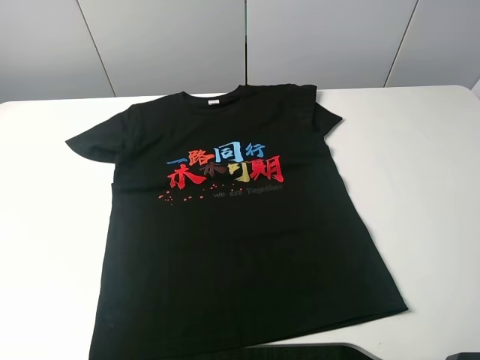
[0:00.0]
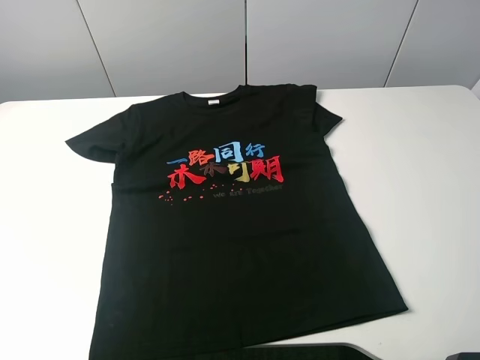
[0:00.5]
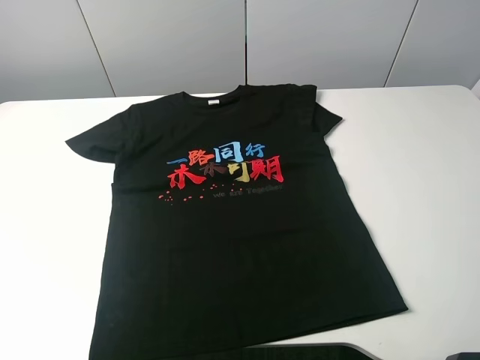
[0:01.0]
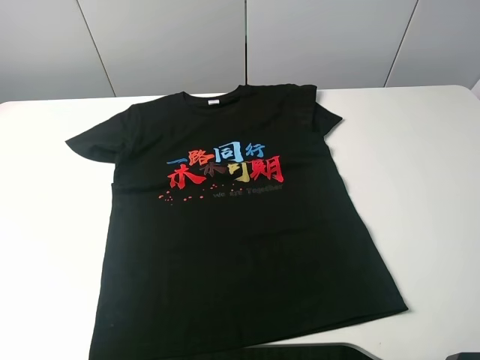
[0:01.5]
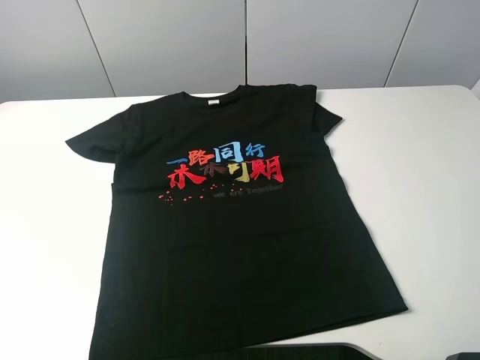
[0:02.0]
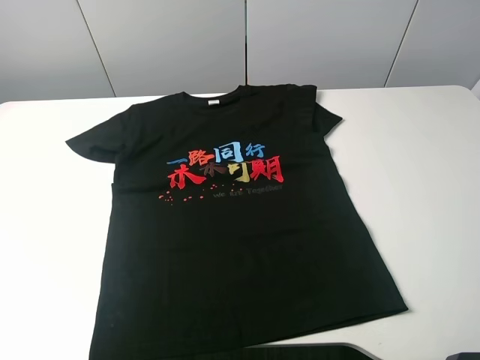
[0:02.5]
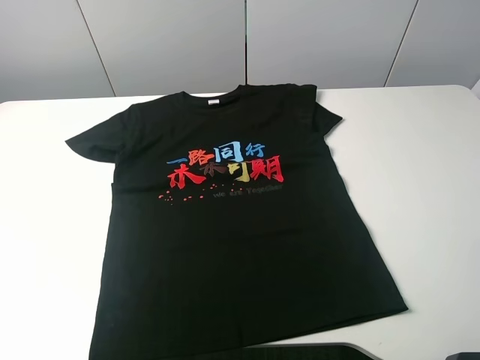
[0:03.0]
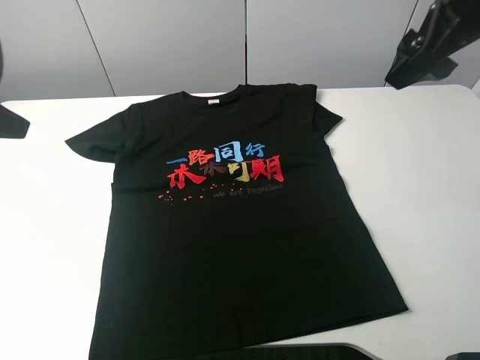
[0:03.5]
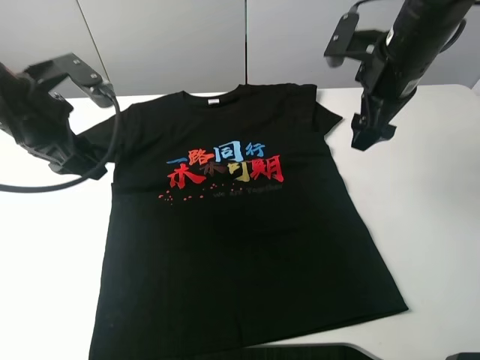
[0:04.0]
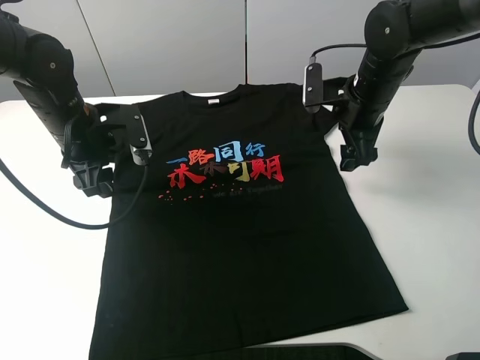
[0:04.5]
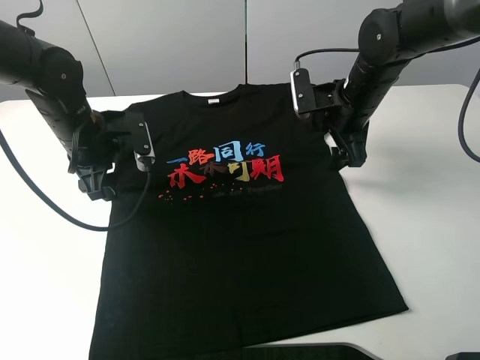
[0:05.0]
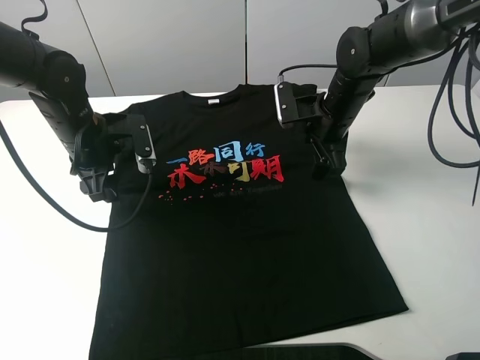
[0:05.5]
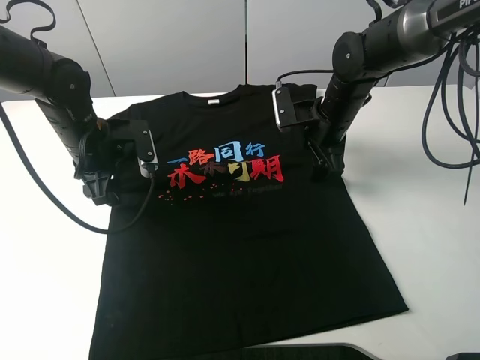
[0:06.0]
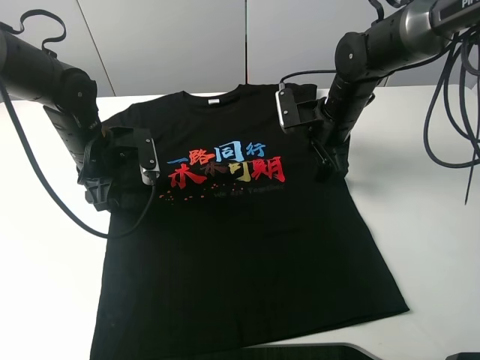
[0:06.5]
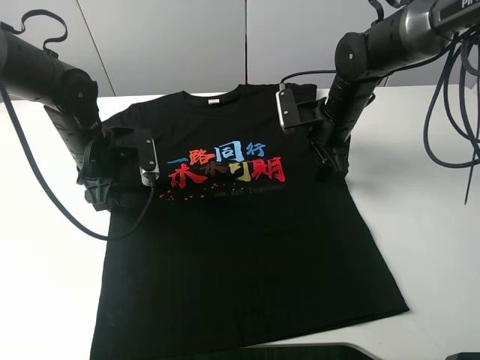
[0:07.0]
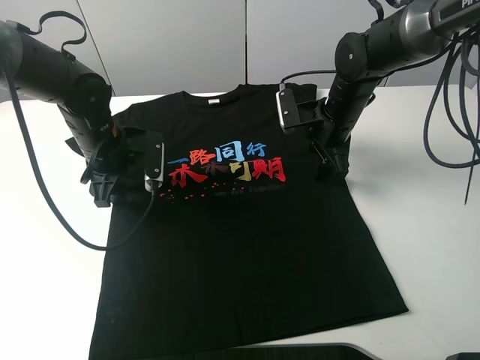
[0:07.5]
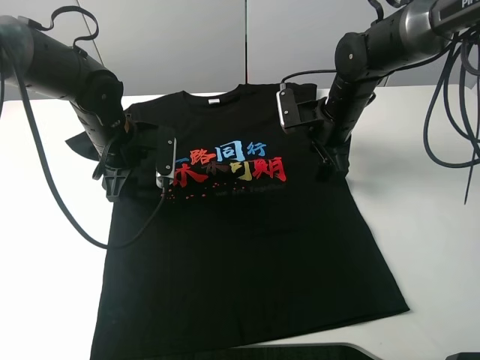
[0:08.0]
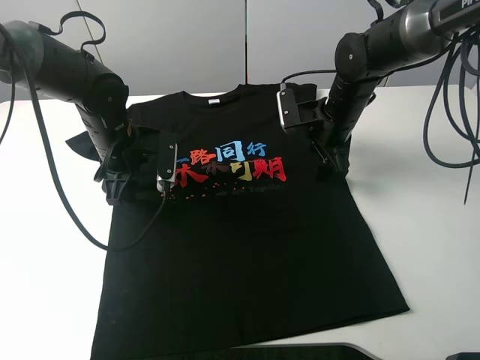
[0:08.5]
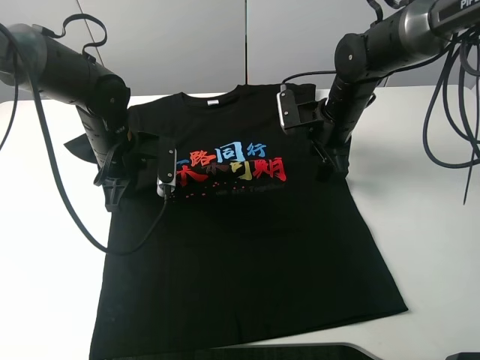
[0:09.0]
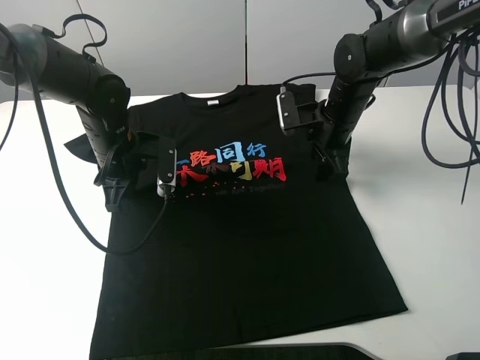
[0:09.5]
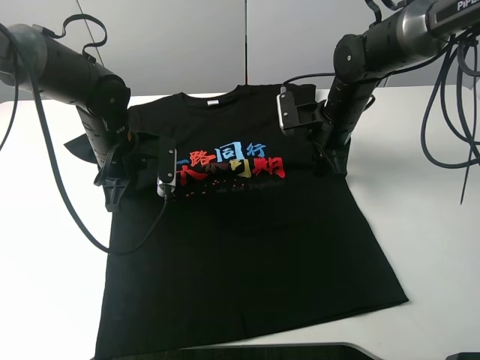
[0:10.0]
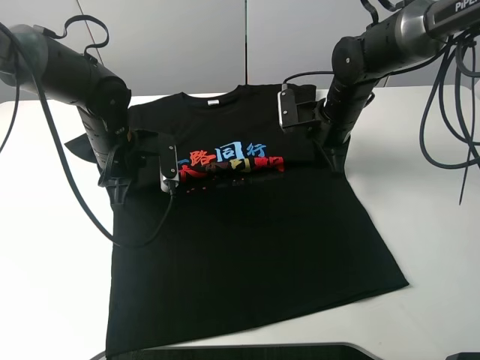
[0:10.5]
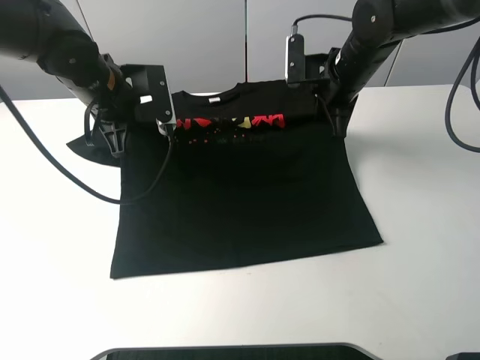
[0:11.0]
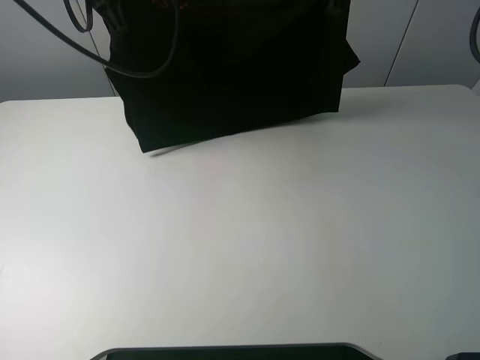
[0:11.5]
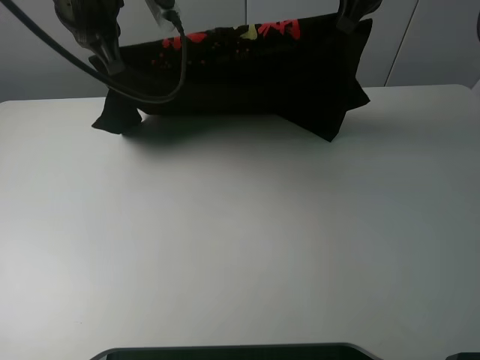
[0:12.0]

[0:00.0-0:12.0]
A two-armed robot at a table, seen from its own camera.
Task of the whole recording: fold the clothes on the table.
Step, 0:00.0 to 0:10.0: Lift the black T-shirt with the left gripper.
0:00.0 to 0:02.0: Both grippers stay about where they are.
0:02.0 to 0:04.0: Both grippers move forward, about 30 cm.
0:04.0 to 0:06.0: Both grippers move downward, some 10 cm.
0:06.0 to 0:08.0: The grippers move only a little.
0:08.0 to 0:10.0: The left gripper closes up. Meanwhile the right gripper closes its fingers.
0:10.0 to 0:12.0: Both grippers travel together upward, some 20 cm.

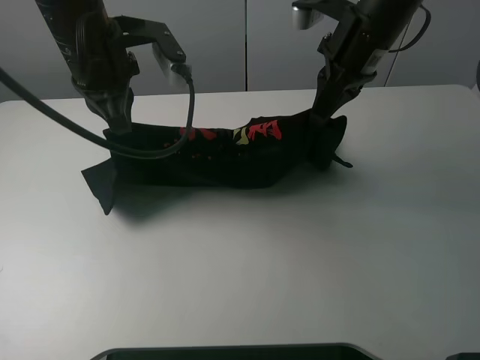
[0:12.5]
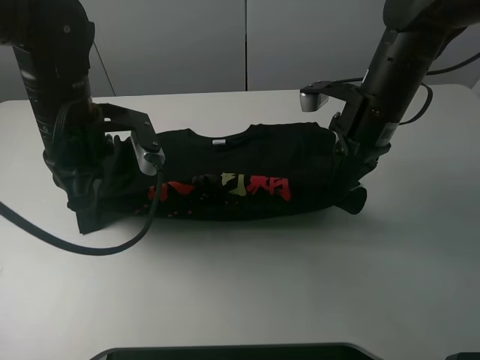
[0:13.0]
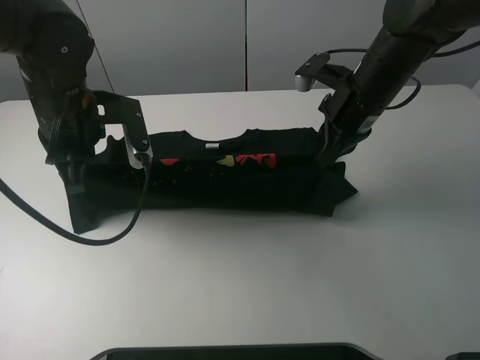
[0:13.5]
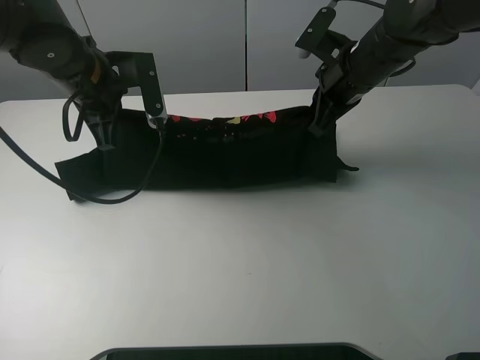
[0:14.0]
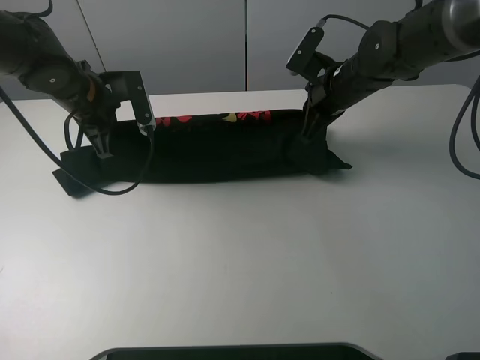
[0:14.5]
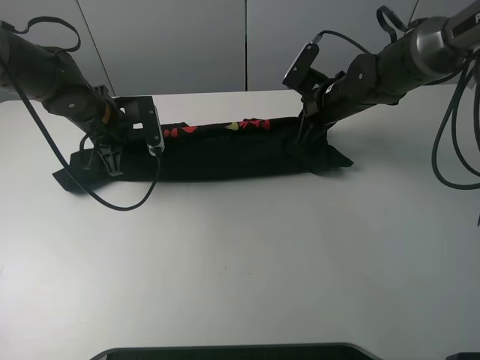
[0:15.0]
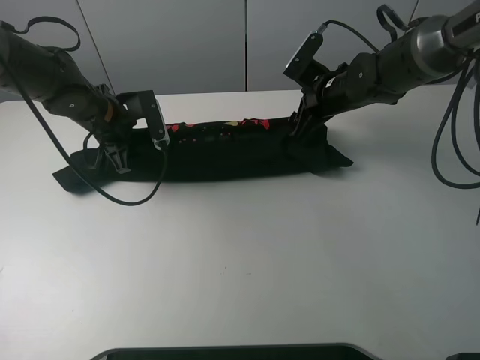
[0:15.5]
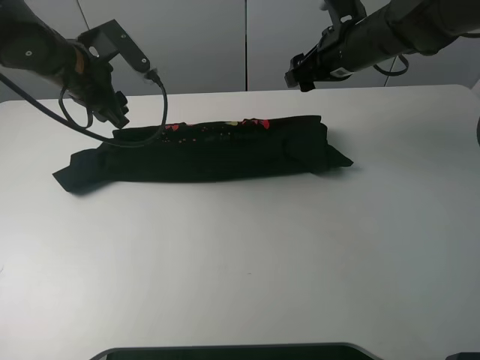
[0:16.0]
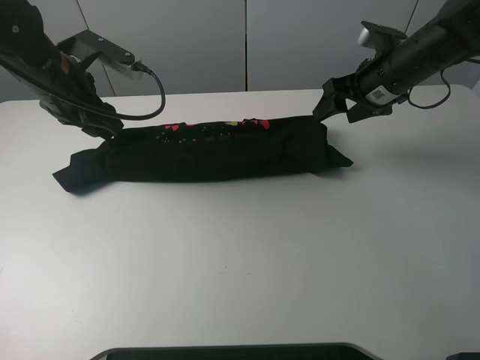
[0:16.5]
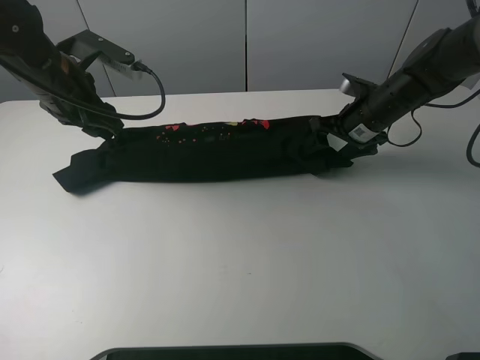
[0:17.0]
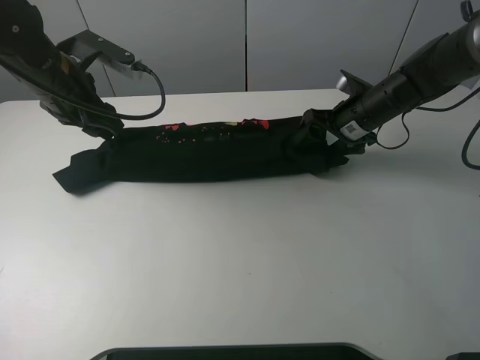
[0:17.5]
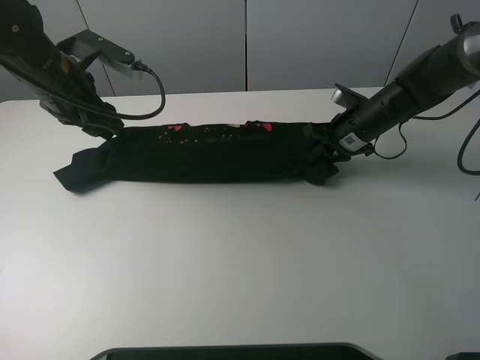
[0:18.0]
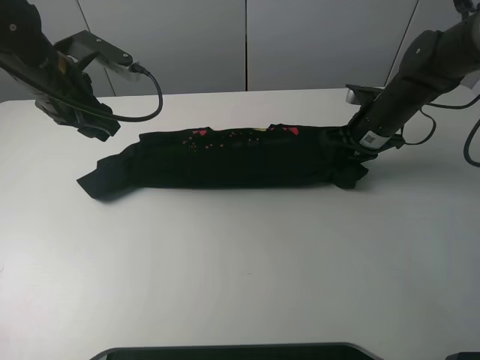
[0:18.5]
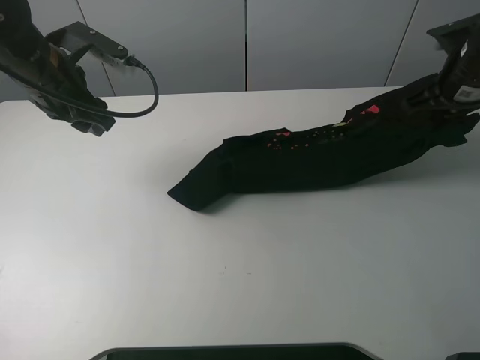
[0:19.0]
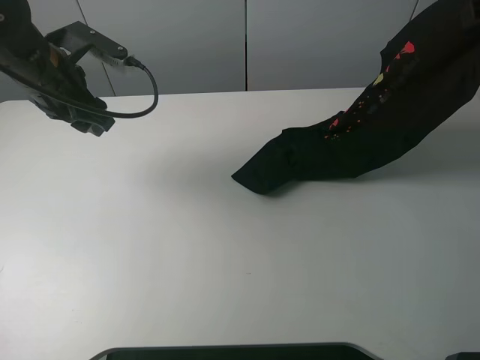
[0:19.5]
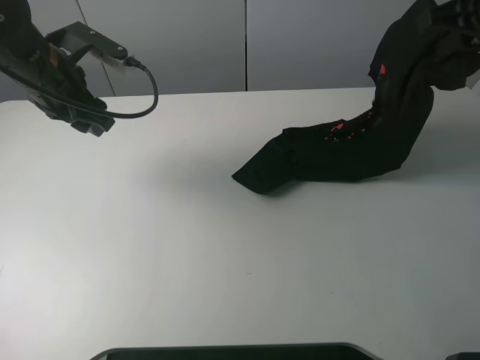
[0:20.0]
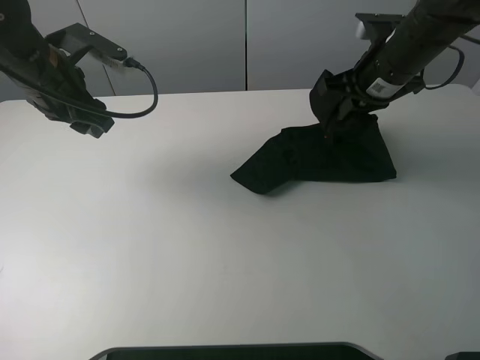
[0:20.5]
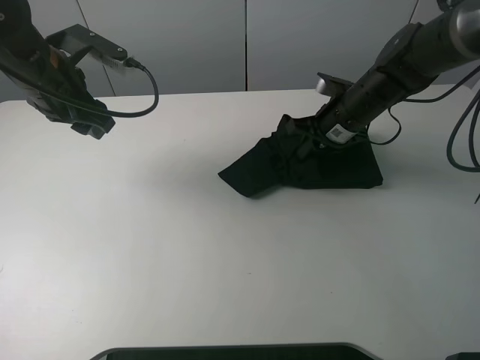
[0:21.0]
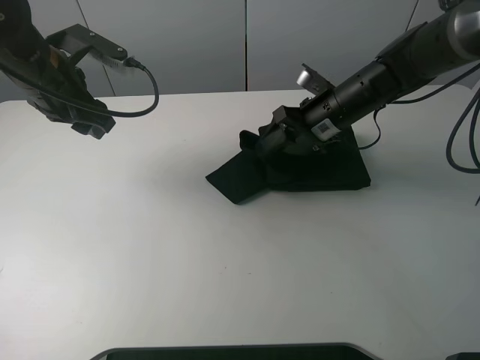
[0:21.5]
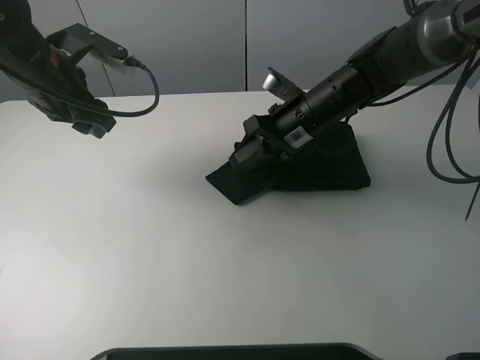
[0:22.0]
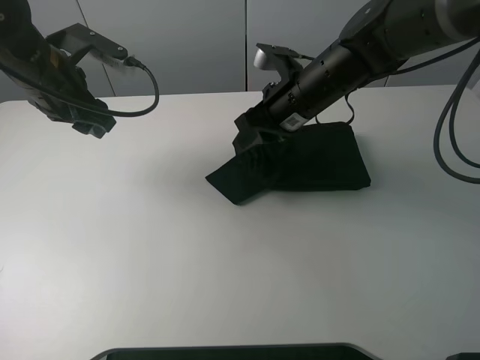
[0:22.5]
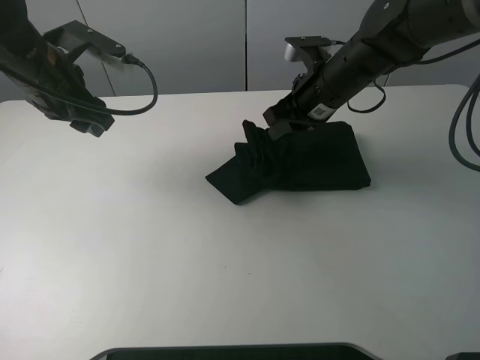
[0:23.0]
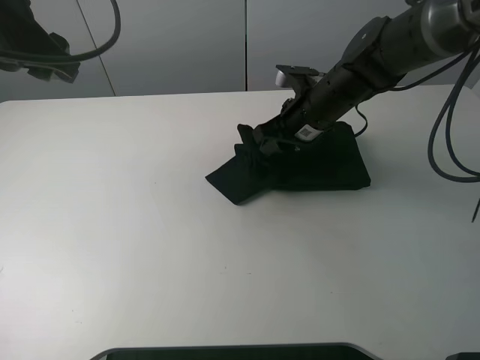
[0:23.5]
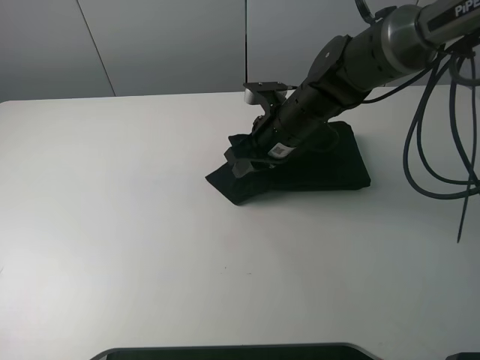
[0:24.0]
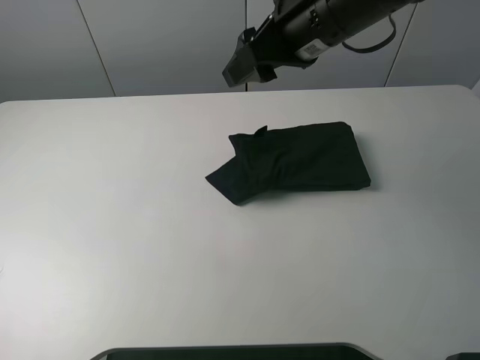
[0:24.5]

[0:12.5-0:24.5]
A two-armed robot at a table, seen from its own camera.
Task of the whole recording: fold the clothes on the table.
Step, 0:12.5 to 0:15.5: Fold the black T-shirt downward with the left gripper.
Step, 0:16.0 to 0:18.0: Grasp the black T-shirt with the right gripper.
Step, 0:18.5 to 0:24.0: Fold the black T-shirt from right to left with right gripper.
0:12.5 to 0:14.5: The right gripper shifts about 10 cm downward. The left gripper is displaced downward, to the left and forward by about 15 cm.
0:14.5 to 0:16.5: The left gripper goes roughly 5 cm upward, and opens up. Meanwhile the right gripper heads to the right, covering approximately 5 cm, and opens its fingers.
0:16.5 to 0:18.5: The right gripper heads downward, covering about 5 cm, and closes up.
0:18.5 to 0:20.5: The right gripper moves upward, about 10 cm.
0:20.5 to 0:22.5: The right gripper travels to the left by roughly 10 cm, and opens and closes again.
0:22.5 to 0:24.5: The left gripper goes approximately 35 cm upward and backward; the right gripper travels upward by roughly 10 cm, and opens.
